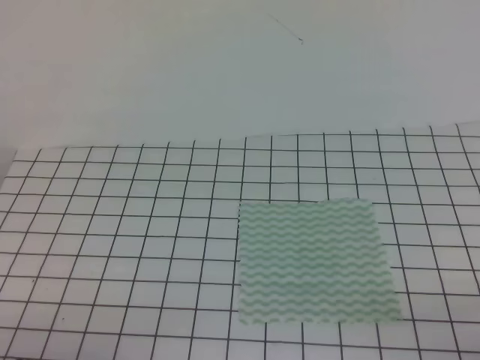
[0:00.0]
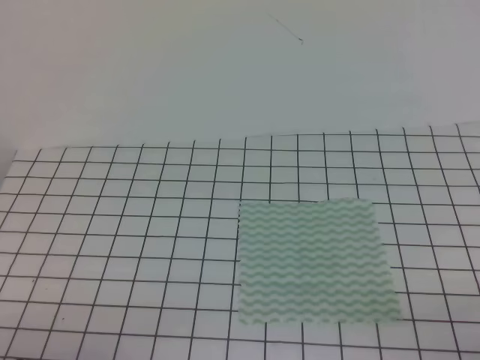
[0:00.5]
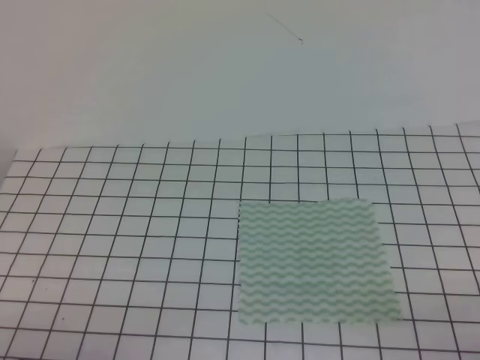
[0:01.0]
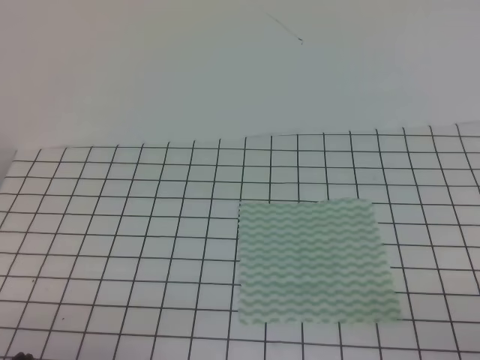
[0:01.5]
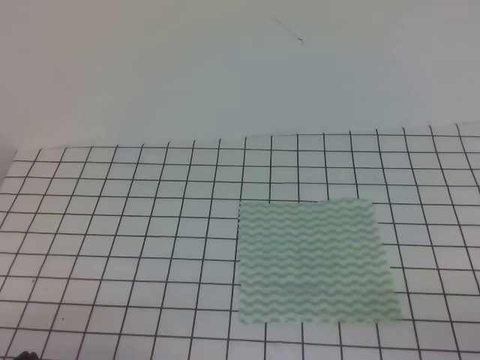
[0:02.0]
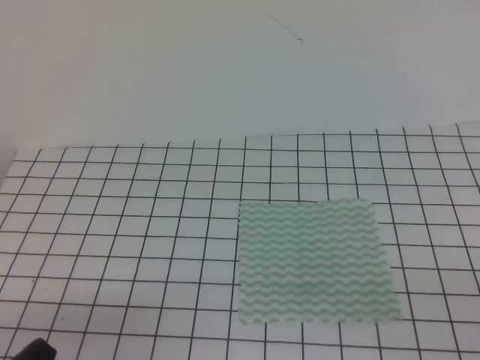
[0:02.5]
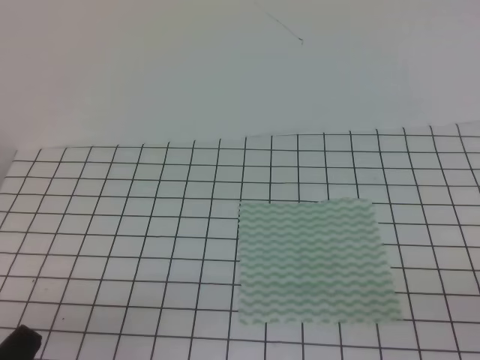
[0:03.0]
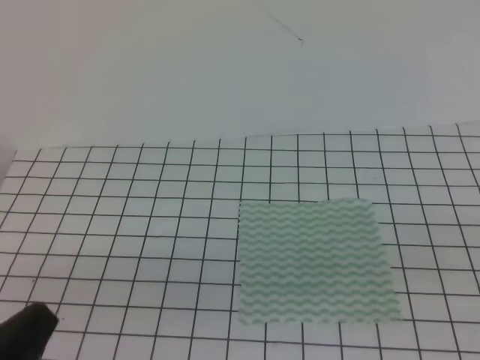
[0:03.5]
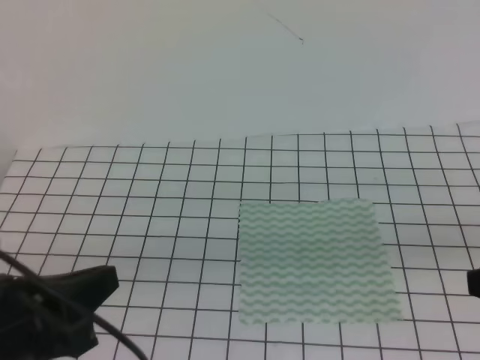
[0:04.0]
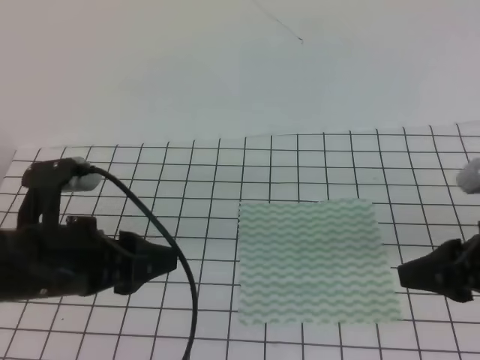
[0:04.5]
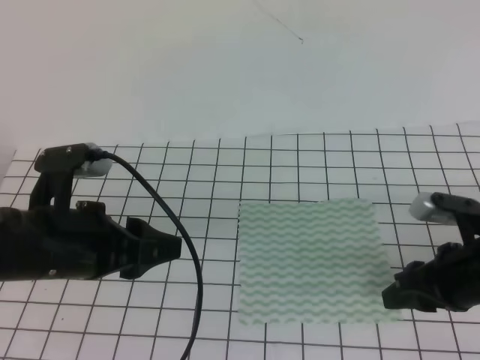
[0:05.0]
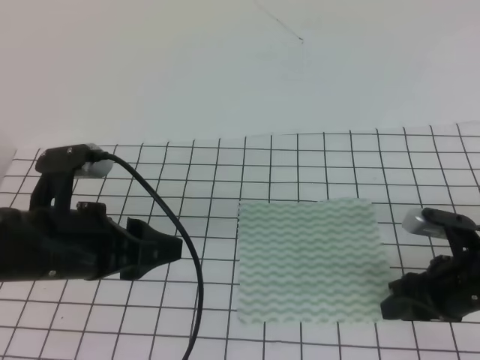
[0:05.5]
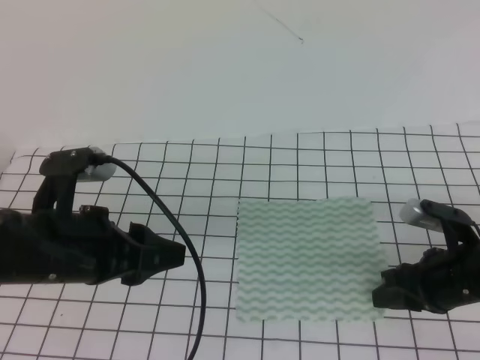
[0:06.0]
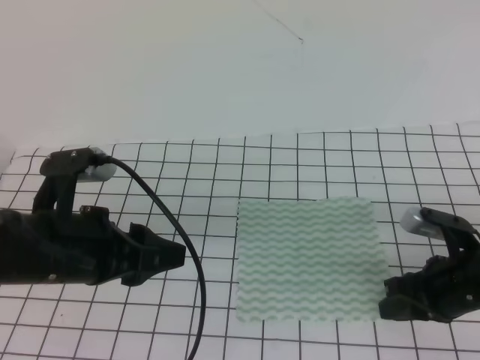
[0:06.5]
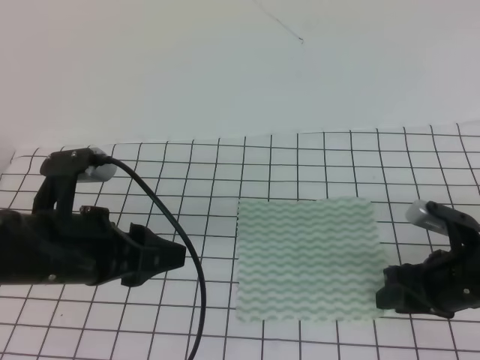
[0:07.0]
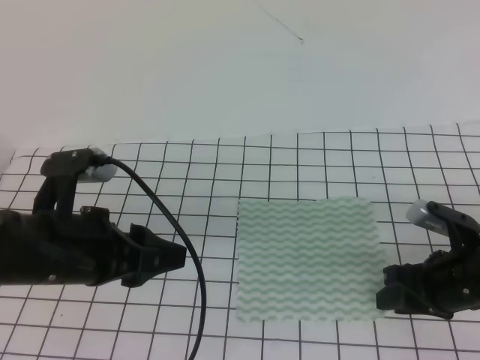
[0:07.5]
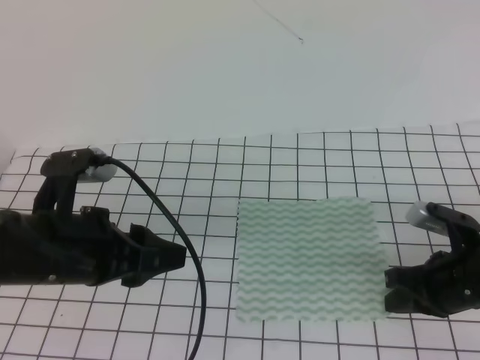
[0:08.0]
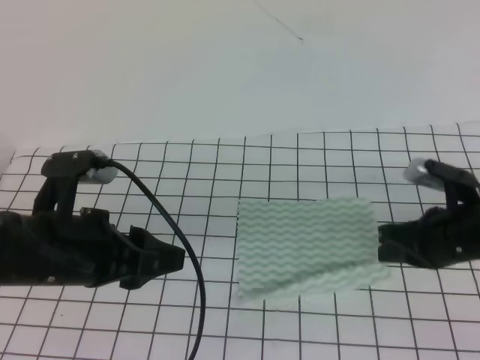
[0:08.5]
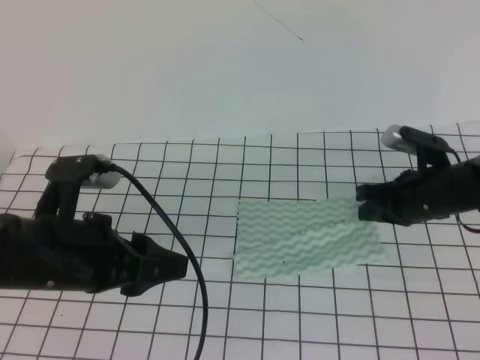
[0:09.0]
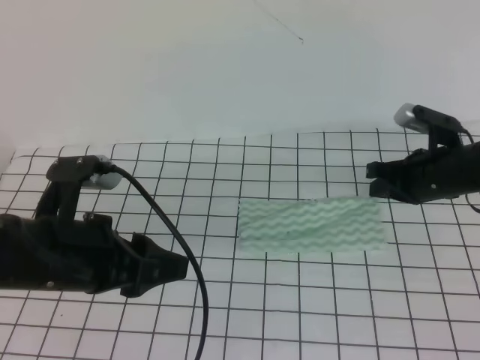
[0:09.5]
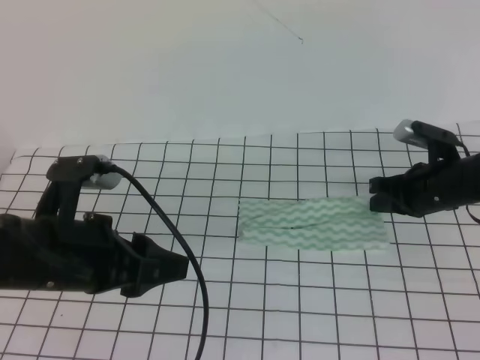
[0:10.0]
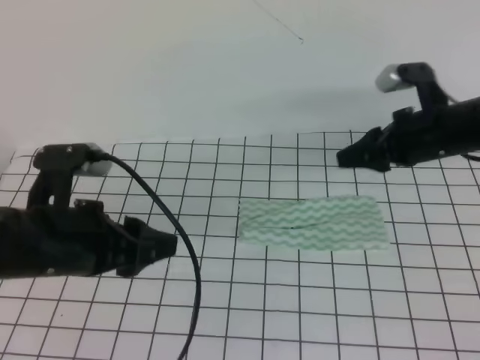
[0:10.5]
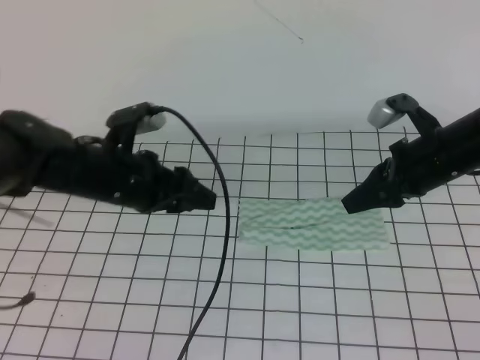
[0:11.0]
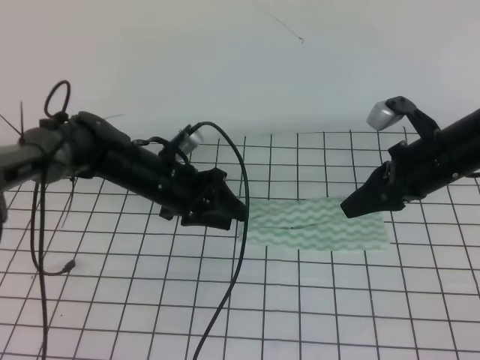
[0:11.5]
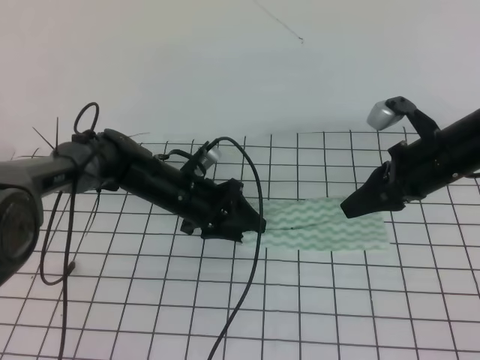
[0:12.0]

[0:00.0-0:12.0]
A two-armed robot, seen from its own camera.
0:02.0 to 0:04.0: Both grippers travel together upward and forward, approximately 15 cm. The right gripper opens up.
0:04.0 to 0:06.0: The left gripper travels forward by approximately 10 cm, and opens up. Meanwhile the right gripper travels downward and forward by approximately 20 cm.
0:06.0 to 0:08.0: The right gripper closes its fingers.
0:08.0 to 0:10.0: The right gripper goes about 15 cm forward, and opens.
0:10.0 to 0:12.0: The left gripper moves forward and downward, roughly 25 cm. The right gripper is displaced upward by approximately 5 cm.

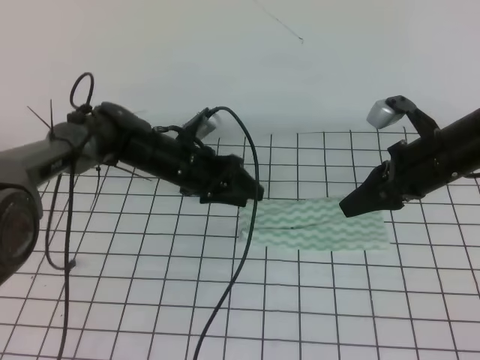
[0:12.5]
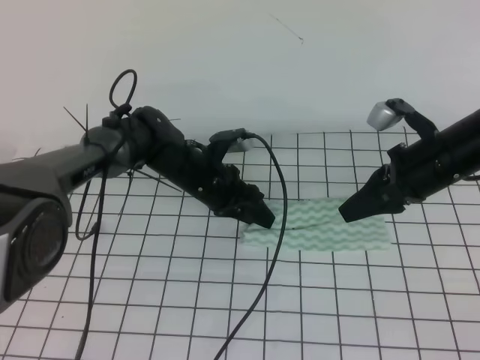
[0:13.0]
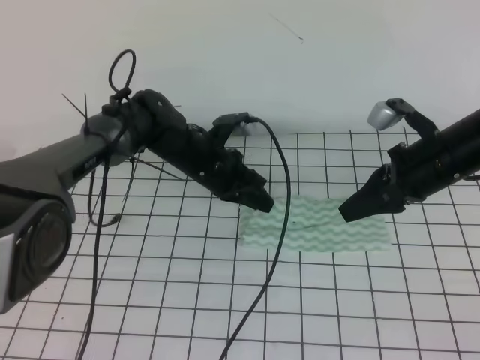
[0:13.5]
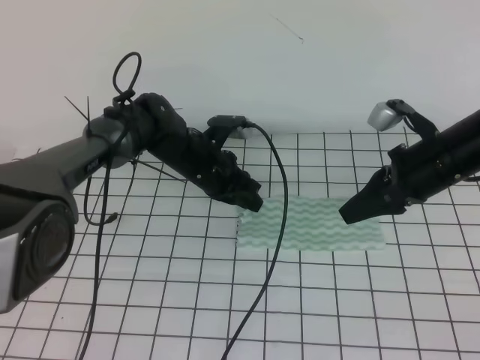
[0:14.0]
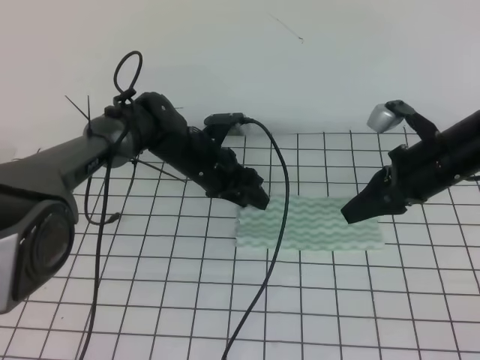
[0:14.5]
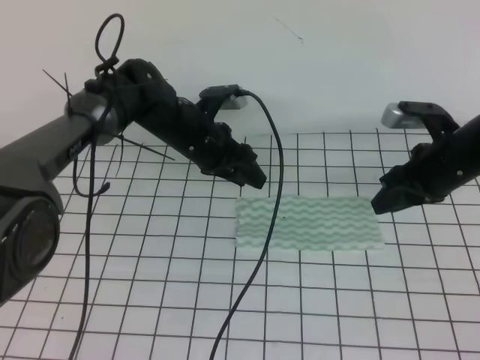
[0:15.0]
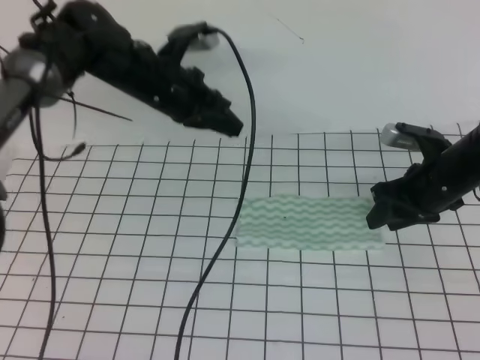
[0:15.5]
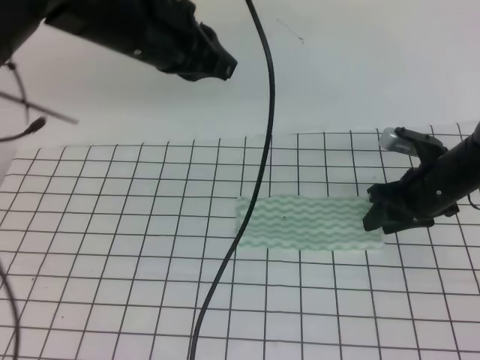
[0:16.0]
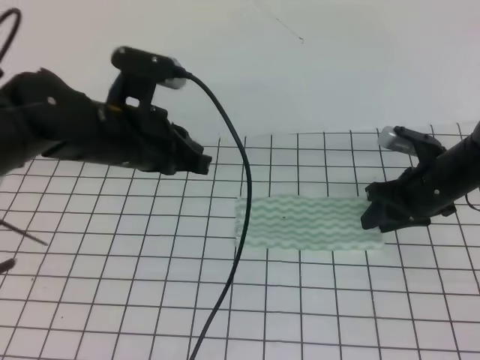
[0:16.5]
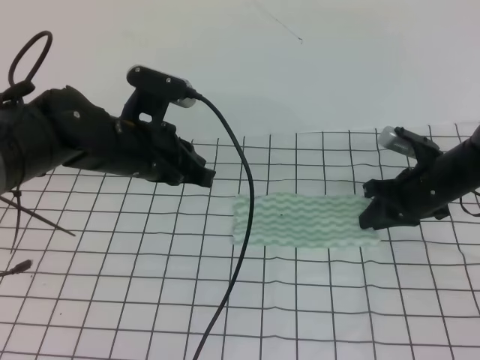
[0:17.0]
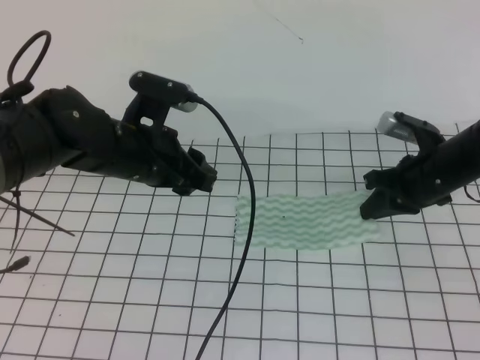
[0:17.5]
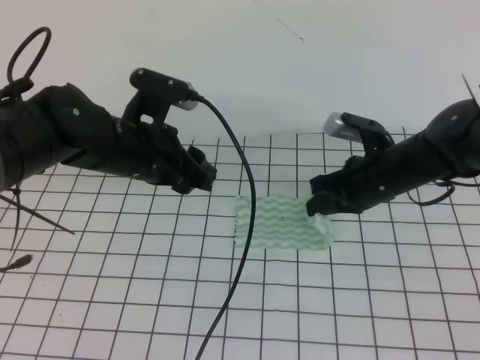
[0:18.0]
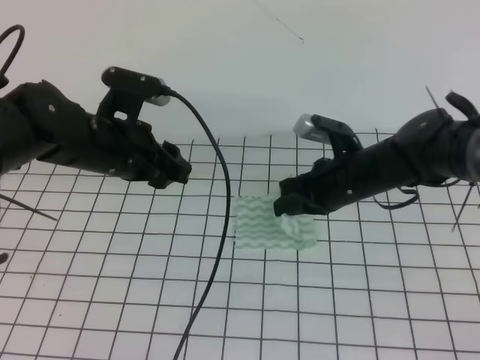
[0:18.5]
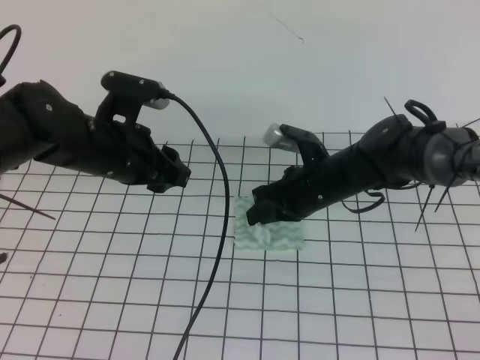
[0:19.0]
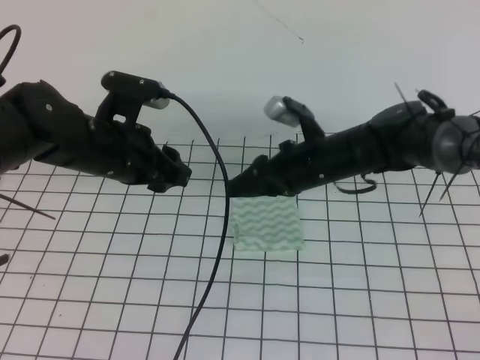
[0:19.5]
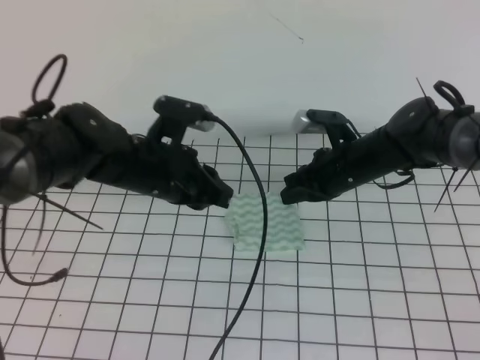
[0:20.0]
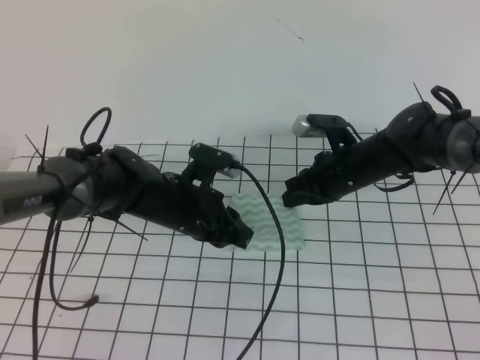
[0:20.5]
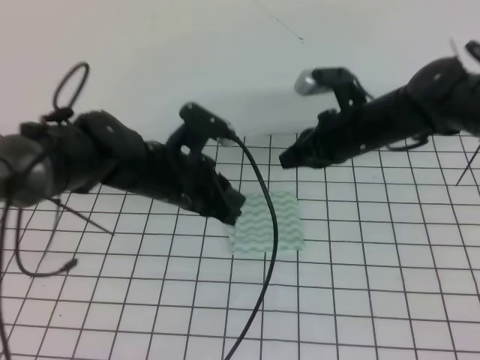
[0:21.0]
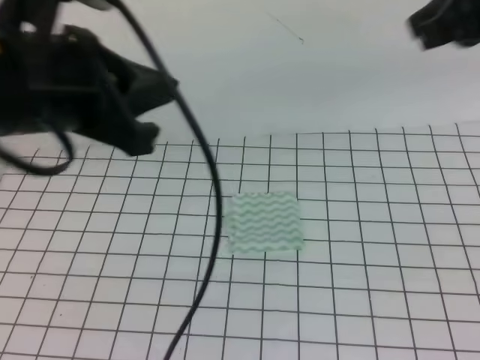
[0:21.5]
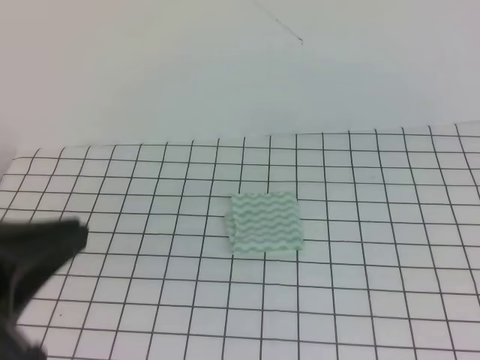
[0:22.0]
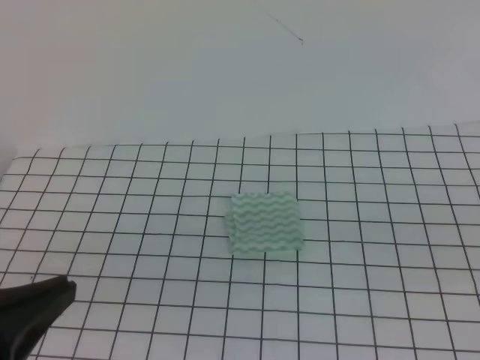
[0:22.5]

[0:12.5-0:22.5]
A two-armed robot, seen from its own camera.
0:12.5 to 0:14.5: The left gripper closes, then opens again.
0:14.5 to 0:16.5: The left gripper travels upward, backward and to the left by approximately 20 cm, and closes. The right gripper heads downward, covering roughly 5 cm.
0:16.5 to 0:18.5: The right gripper is displaced to the left by roughly 10 cm, and closes its fingers, while the left gripper shifts by some 5 cm, and opens up.
0:18.5 to 0:20.5: The right gripper moves about 5 cm, and opens, then closes again. Meanwhile the left gripper is displaced downward and to the right by some 10 cm, and closes up.
0:20.5 to 0:22.5: The left gripper travels backward, upward and to the left by about 35 cm; the right gripper heads backward, upward and to the right, covering approximately 40 cm.

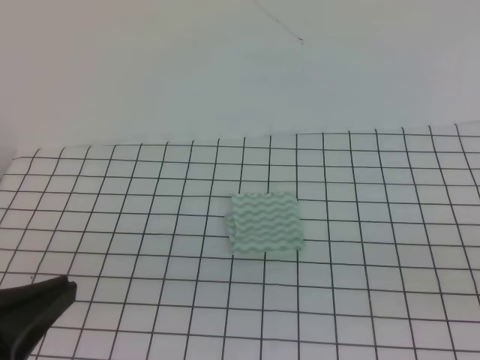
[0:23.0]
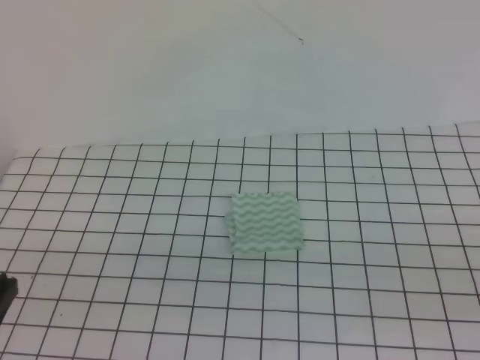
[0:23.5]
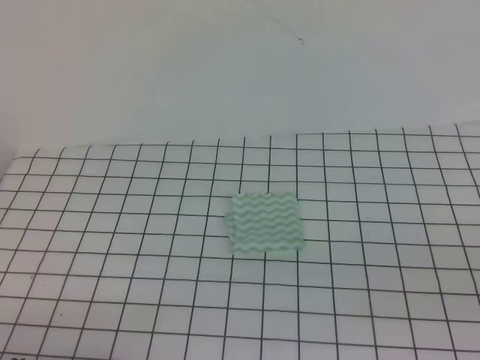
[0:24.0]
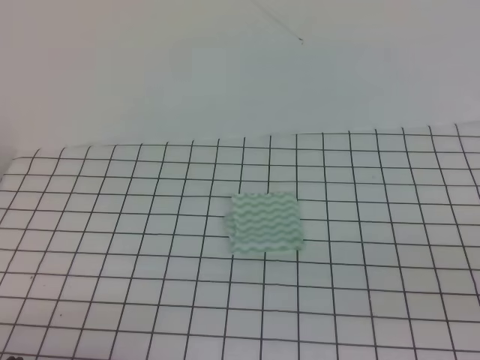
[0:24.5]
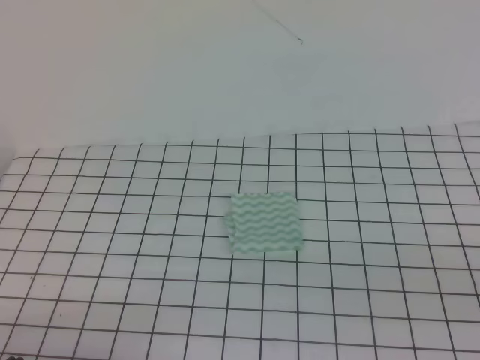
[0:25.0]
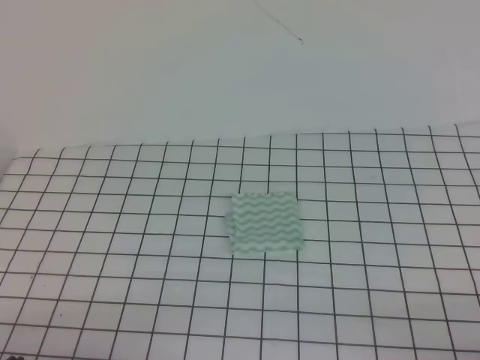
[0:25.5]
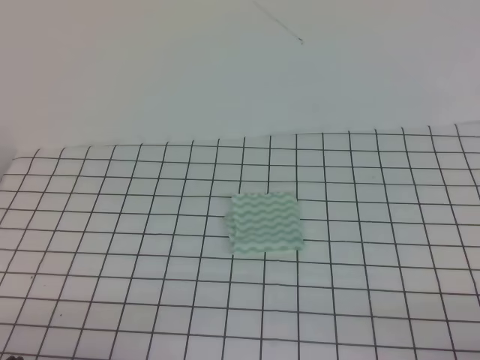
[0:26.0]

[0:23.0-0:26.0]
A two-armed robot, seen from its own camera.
Step, 0:23.0 to 0:26.0: Fold the towel.
0:23.0 to 0:24.5: The left gripper travels downward by approximately 15 cm.
